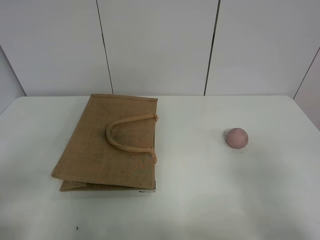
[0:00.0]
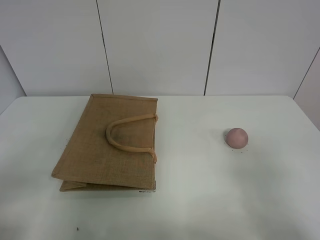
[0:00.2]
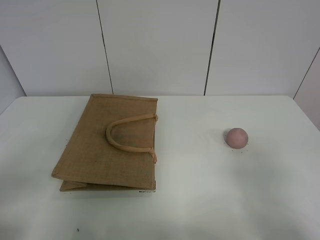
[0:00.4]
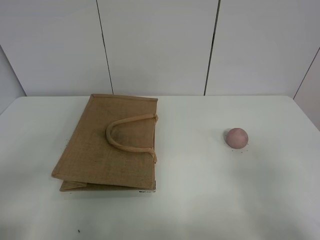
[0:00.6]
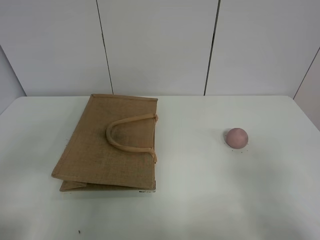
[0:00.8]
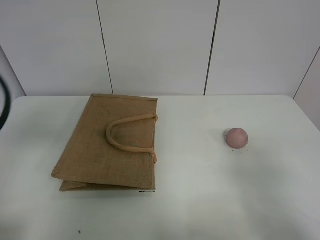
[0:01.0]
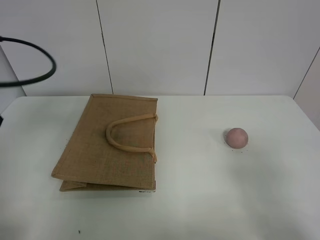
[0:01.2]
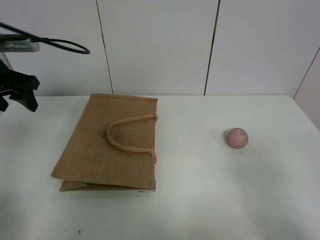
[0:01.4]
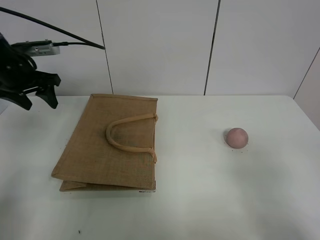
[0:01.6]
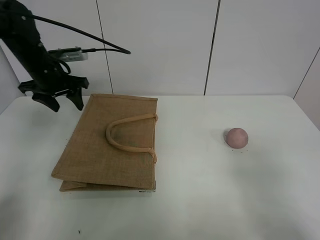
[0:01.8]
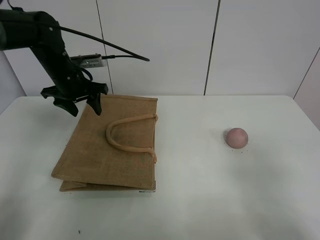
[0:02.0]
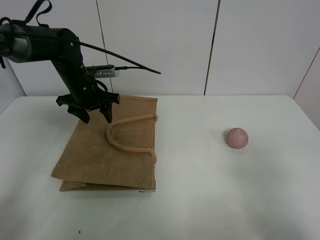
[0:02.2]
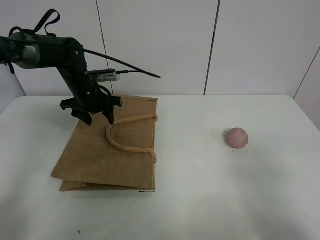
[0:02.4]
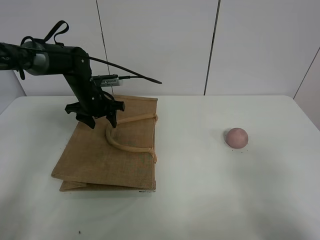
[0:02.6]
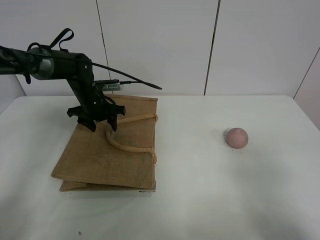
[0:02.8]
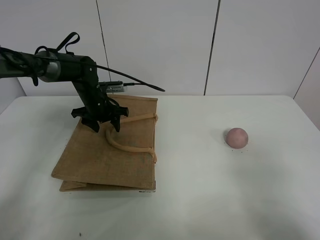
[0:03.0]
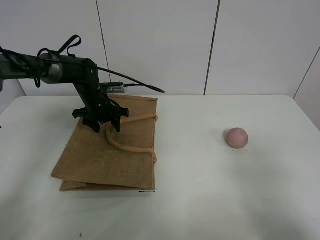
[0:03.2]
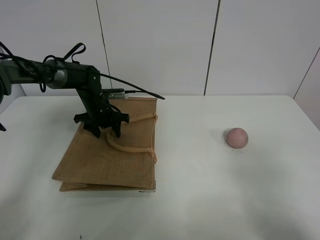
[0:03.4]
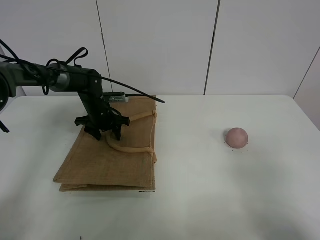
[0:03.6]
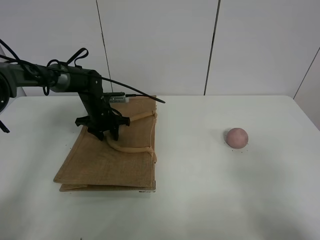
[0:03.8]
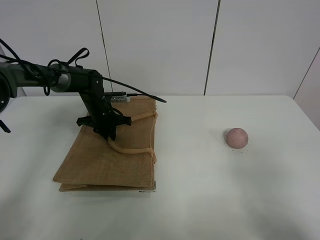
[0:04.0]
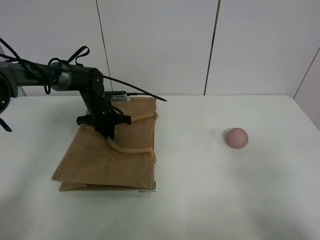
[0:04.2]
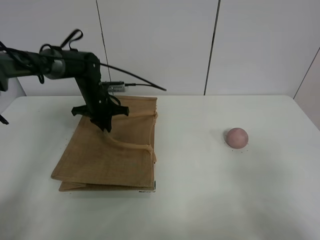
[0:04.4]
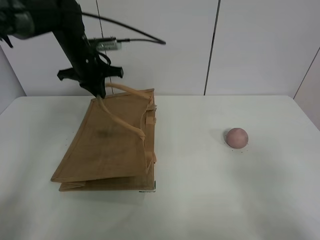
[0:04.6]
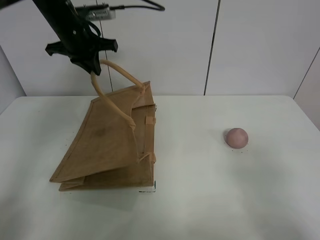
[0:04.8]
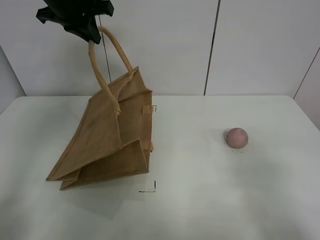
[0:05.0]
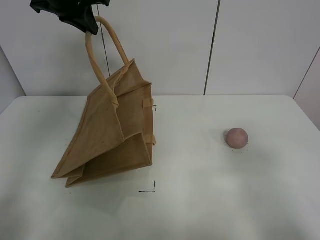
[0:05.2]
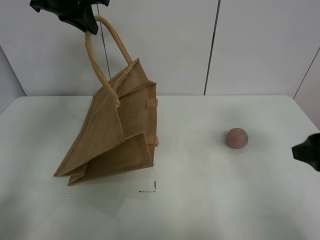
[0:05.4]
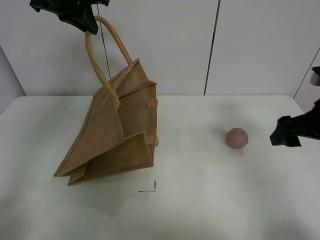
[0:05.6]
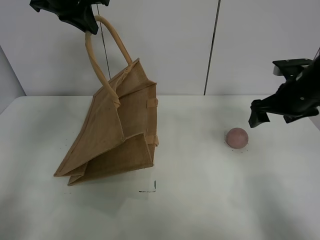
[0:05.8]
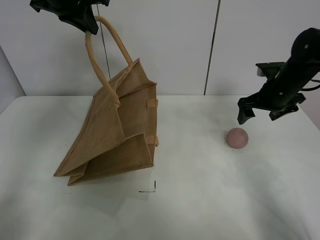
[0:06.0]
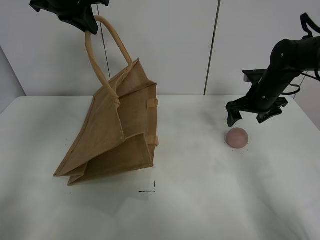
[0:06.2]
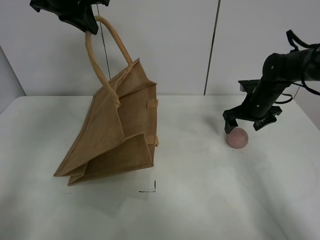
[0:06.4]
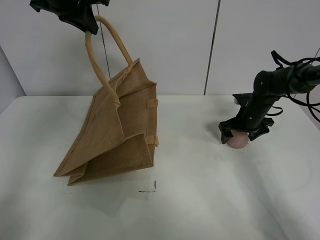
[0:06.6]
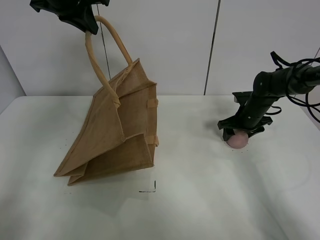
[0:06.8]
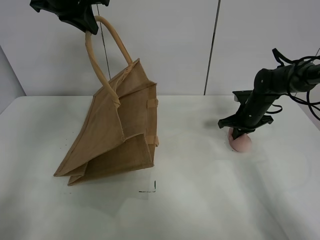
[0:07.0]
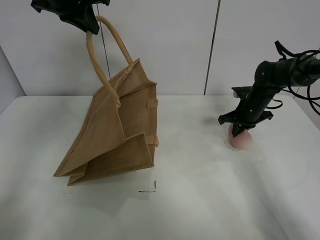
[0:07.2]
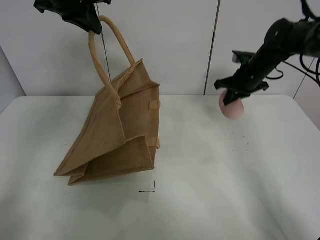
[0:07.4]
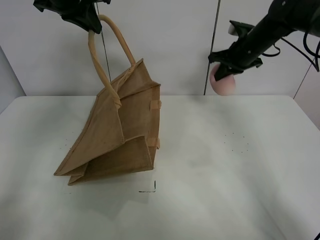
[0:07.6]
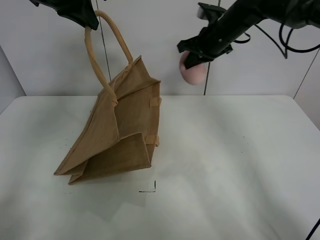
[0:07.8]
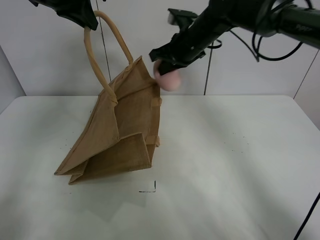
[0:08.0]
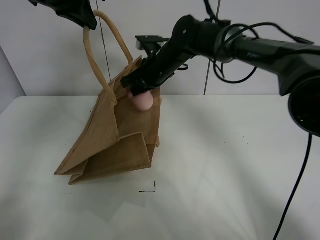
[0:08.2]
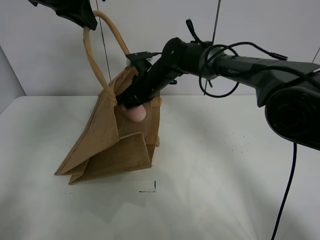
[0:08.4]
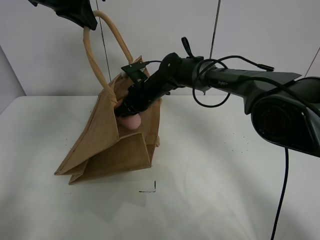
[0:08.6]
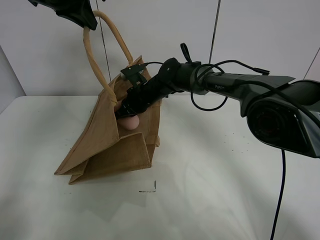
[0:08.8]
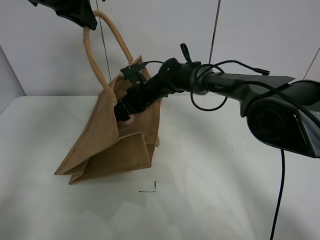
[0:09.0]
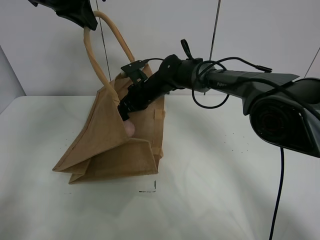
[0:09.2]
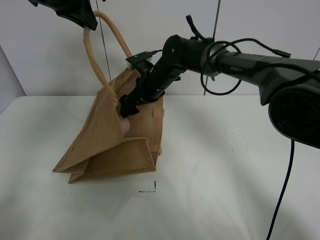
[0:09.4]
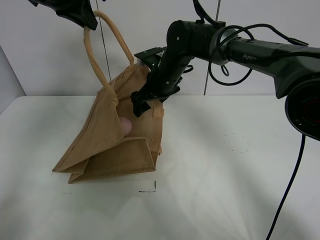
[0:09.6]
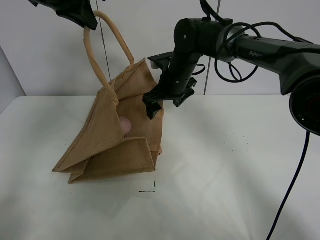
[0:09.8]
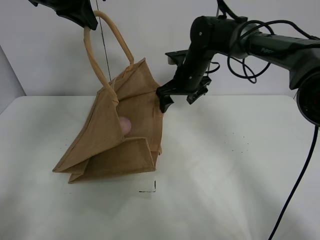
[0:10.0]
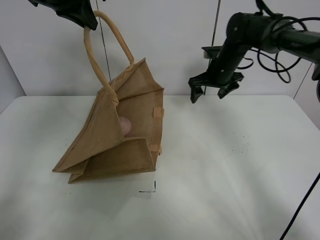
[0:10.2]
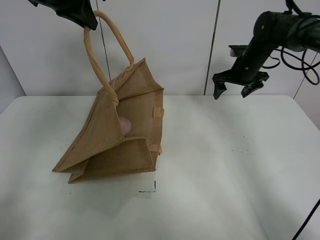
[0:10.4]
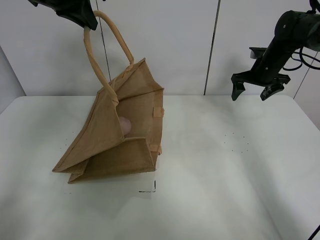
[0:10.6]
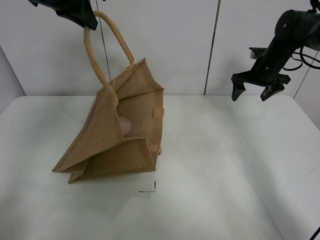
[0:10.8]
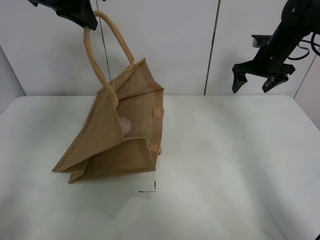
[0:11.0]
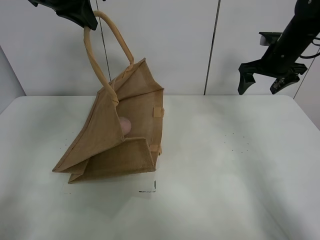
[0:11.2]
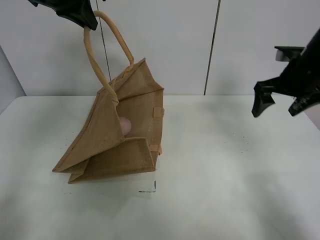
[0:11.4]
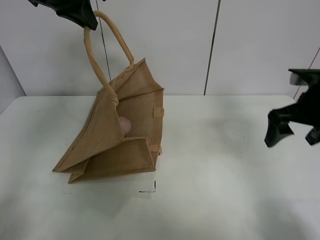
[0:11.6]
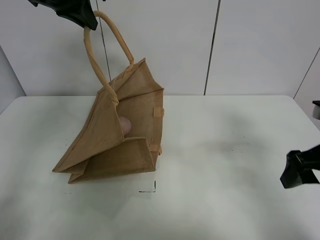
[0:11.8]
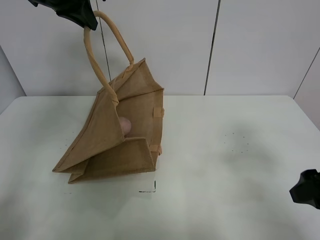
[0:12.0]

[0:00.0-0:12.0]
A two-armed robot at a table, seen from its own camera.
Task of the whole recording: open the brown linen bag and put the peach in the bag.
Step, 0:00.0 to 0:05.0: Lift the handbag with left gripper.
Step, 0:05.2 to 0:07.0: Grasp the peach with right gripper.
Step, 0:07.2 to 0:10.0: Place the peach in the handbag with right gripper.
0:00.0 to 0:01.6: The left gripper travels forward by approximately 40 cm.
0:01.6 to 0:03.0: The left gripper is displaced downward, to the right and forward by about 20 cm.
0:03.0 to 0:04.4: The left gripper closes its fingers.
0:04.4 to 0:06.0: The right gripper heads forward, covering some 40 cm. Meanwhile the left gripper goes roughly 25 cm upward.
0:06.0 to 0:07.6: The right gripper heads forward, upward and to the left, covering roughly 10 cm, and closes its fingers.
0:07.6 to 0:09.0: The right gripper heads to the left and downward, covering approximately 25 cm, and opens up.
0:09.0 to 0:10.4: The right gripper goes roughly 25 cm to the right.
0:10.4 to 0:12.0: The right gripper heads backward, covering roughly 35 cm.

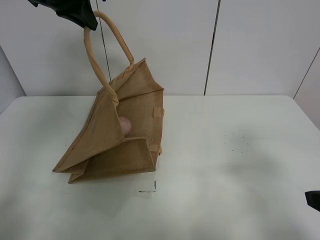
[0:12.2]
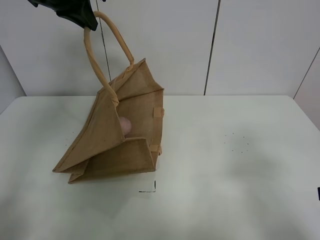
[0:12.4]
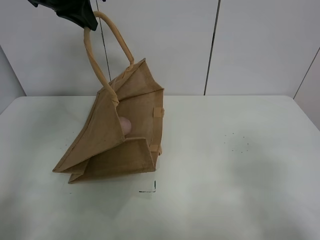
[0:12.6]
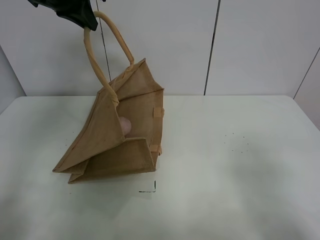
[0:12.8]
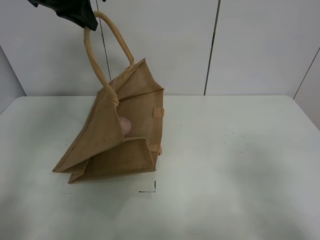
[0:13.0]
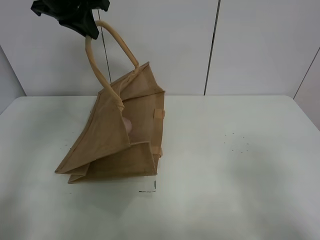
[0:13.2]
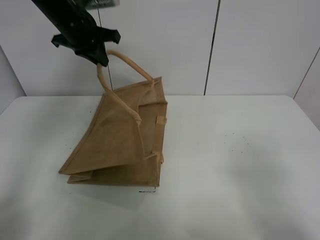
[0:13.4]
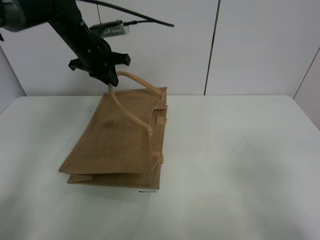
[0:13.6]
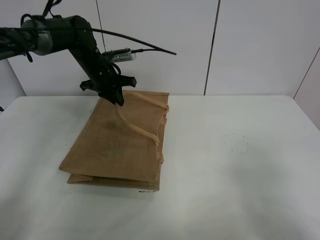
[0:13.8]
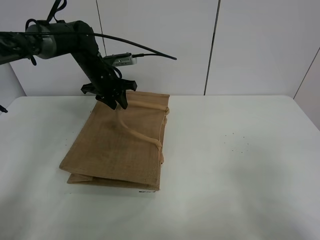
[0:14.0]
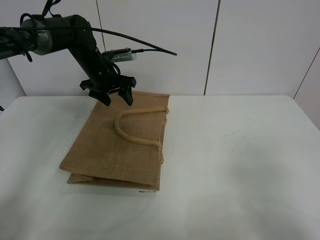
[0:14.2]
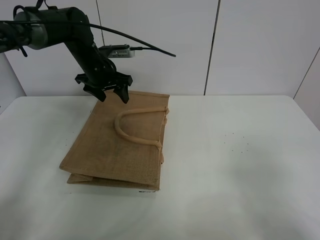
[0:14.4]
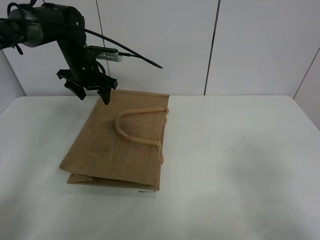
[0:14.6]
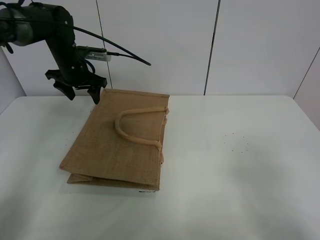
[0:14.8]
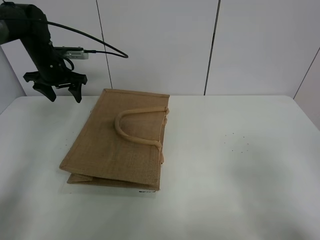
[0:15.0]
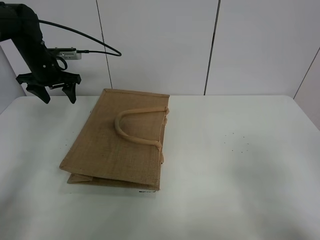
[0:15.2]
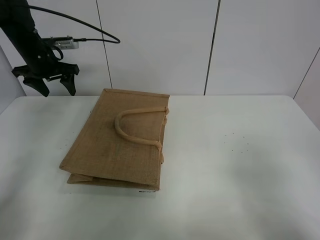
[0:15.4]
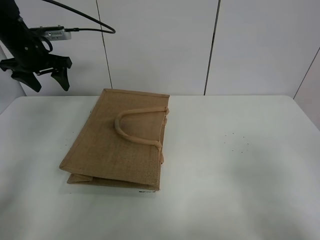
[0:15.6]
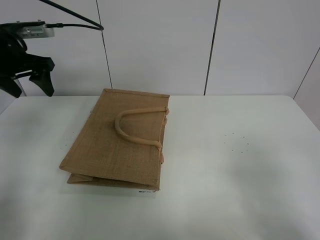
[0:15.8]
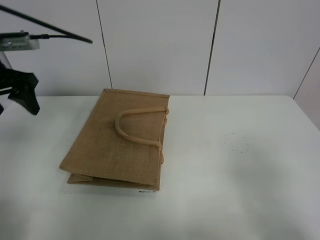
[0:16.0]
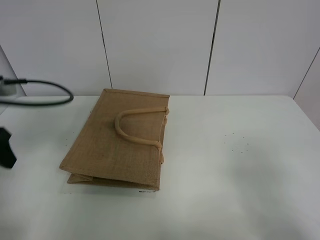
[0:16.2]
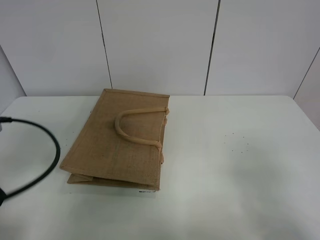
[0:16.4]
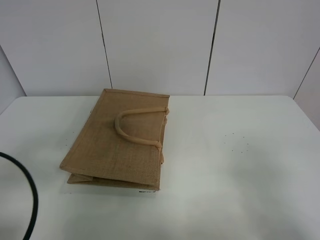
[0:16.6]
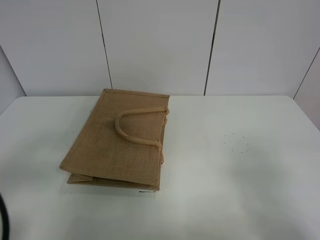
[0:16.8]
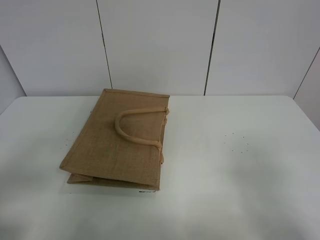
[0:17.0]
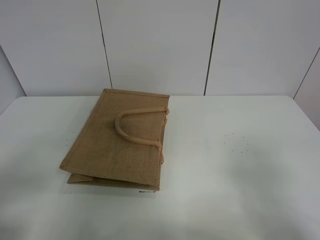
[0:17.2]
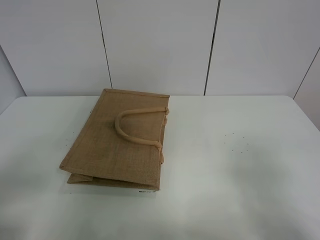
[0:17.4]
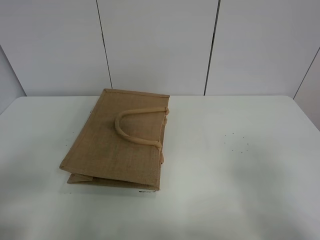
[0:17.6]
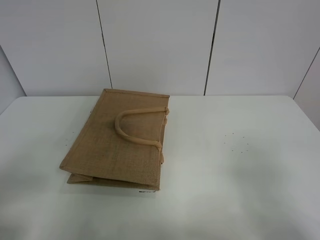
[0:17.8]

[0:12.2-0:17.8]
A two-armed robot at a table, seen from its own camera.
Task of the whole recording: open the brown linen bag and put the peach in the bag.
Step, 0:12.2 to 0:14.8: Put down the handbag with left grippe.
0:12.2 to 0:13.6: The left gripper goes some 15 cm downward; the right gripper heads backward, covering approximately 10 cm.
0:13.6 to 0:15.0: The left gripper travels to the left by roughly 15 cm, and opens up.
0:15.0 to 0:16.4: The left gripper shifts about 35 cm backward.
0:16.4 to 0:17.8: The left gripper is displaced backward by about 10 cm.

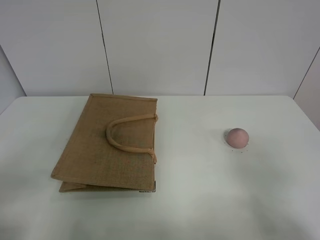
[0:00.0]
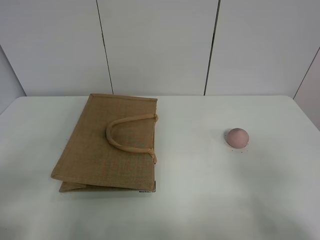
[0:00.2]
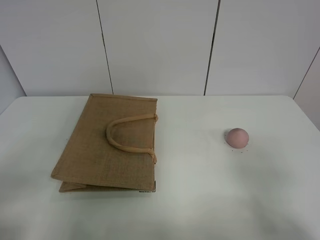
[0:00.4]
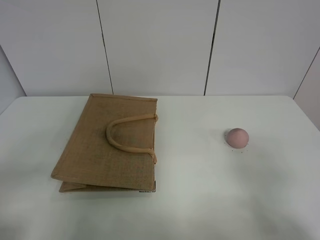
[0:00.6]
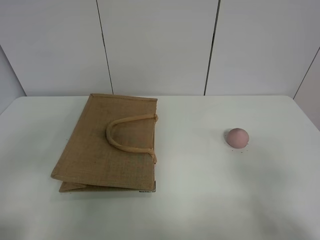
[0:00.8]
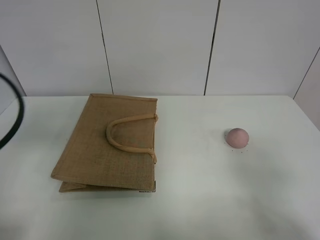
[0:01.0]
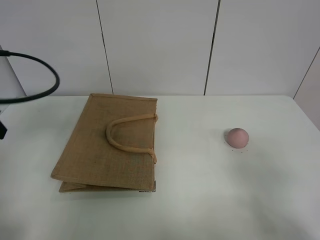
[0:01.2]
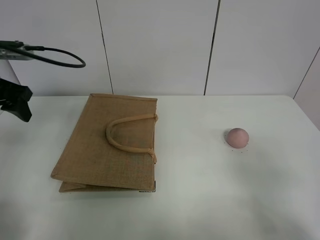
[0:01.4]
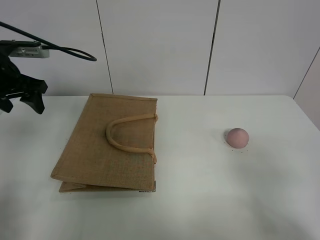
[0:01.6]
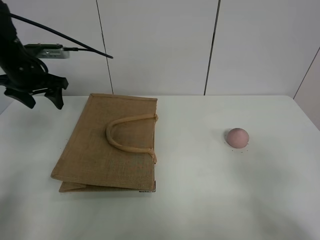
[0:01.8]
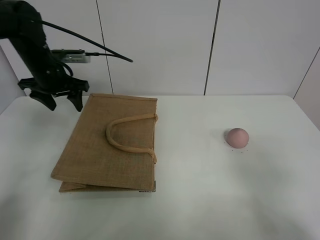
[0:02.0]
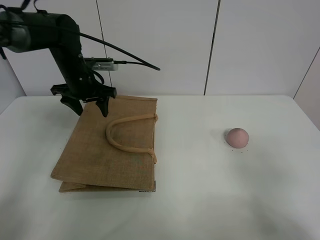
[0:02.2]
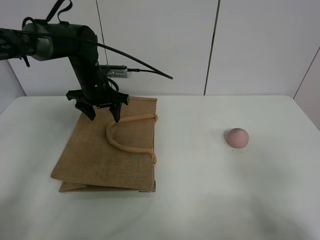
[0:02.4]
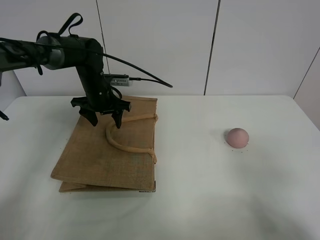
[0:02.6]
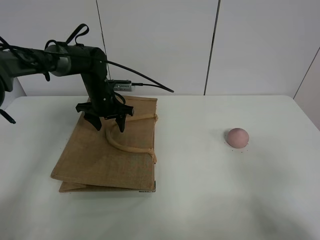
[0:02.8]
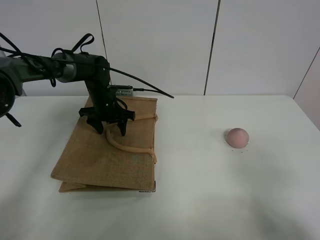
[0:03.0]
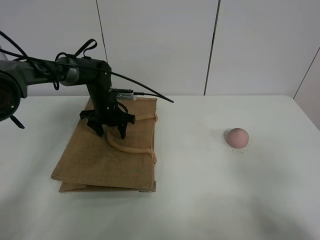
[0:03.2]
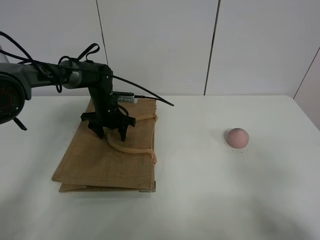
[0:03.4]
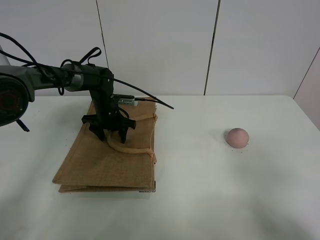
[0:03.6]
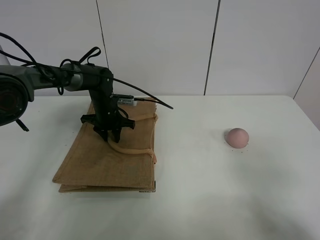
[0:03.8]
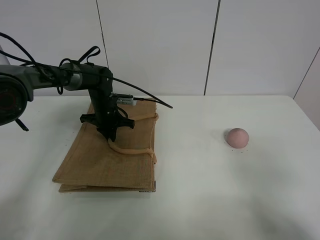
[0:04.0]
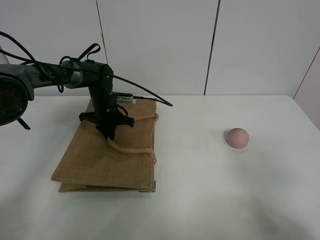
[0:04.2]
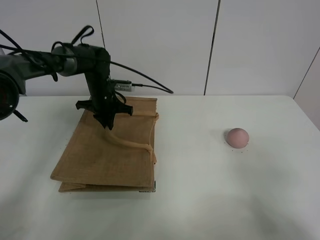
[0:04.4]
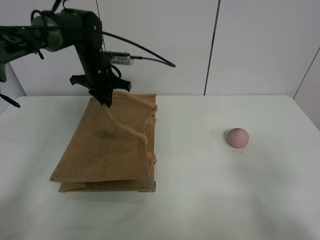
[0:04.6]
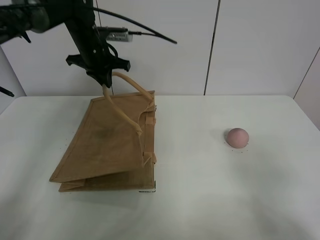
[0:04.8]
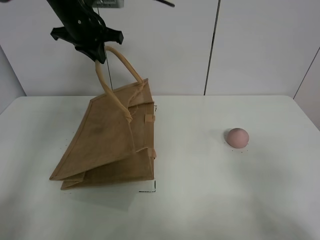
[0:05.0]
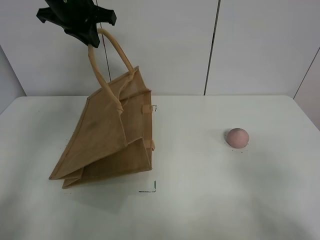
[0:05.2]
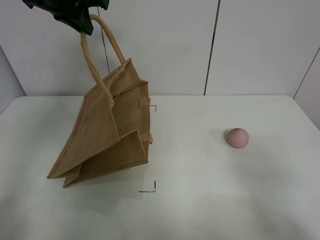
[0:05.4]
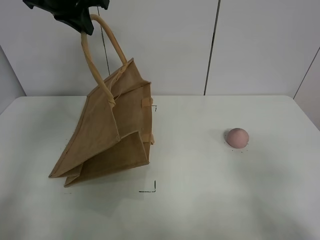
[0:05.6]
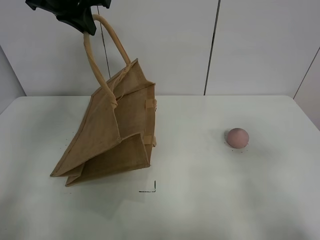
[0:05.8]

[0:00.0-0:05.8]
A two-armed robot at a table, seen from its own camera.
Task of the whole recording: open the brown linen bag and put the peach in the bag.
Step, 0:00.0 to 0:05.4: Lift the handbag with left gripper.
0:00.0 to 0:01.4: The left gripper moves forward, roughly 30 cm.
0:01.4 to 0:02.8: The left gripper is displaced to the right, downward and forward by some 25 cm.
0:02.8 to 0:04.4: The left gripper closes its fingers.
0:04.4 to 0:05.8: The right gripper heads forward, covering some 5 cm. The left gripper goes approximately 25 cm upward.
